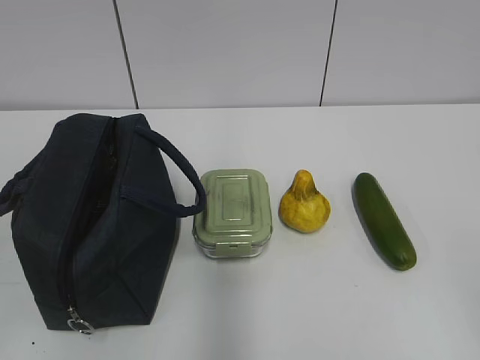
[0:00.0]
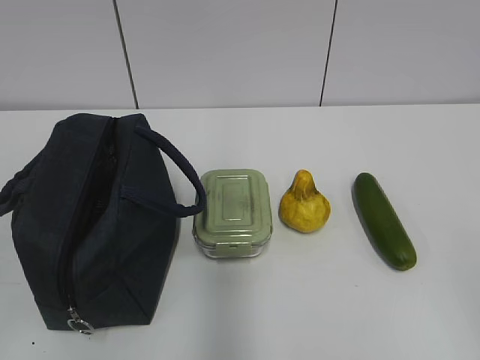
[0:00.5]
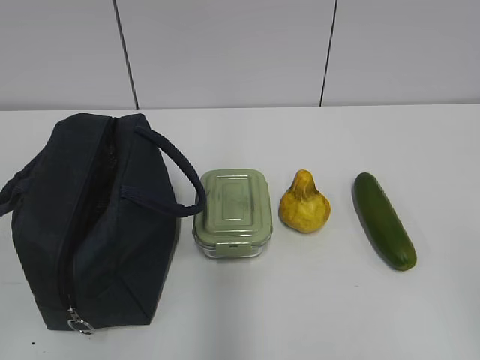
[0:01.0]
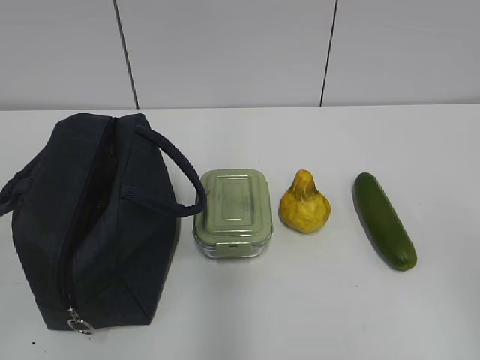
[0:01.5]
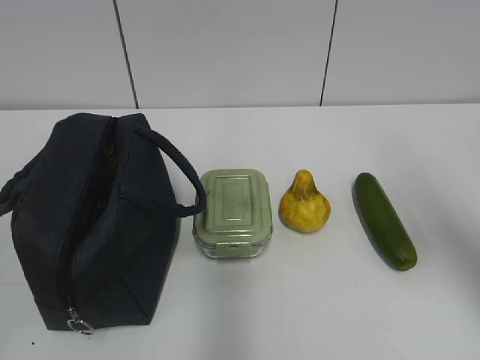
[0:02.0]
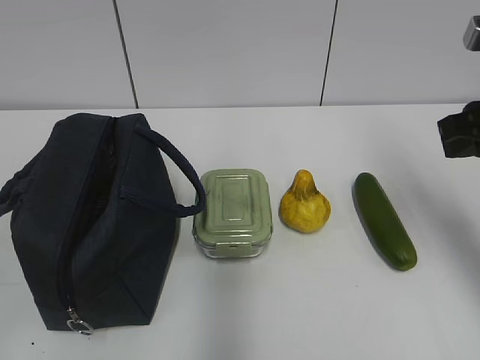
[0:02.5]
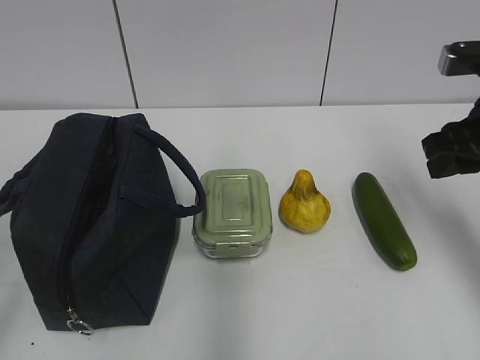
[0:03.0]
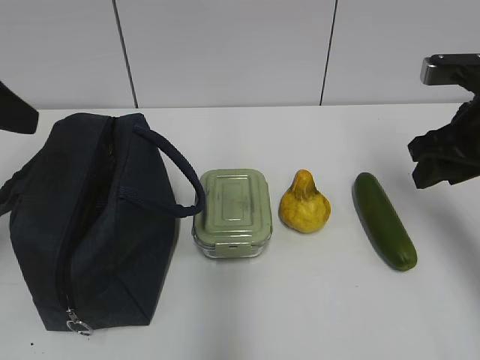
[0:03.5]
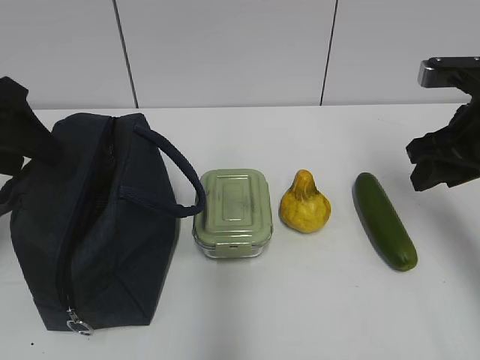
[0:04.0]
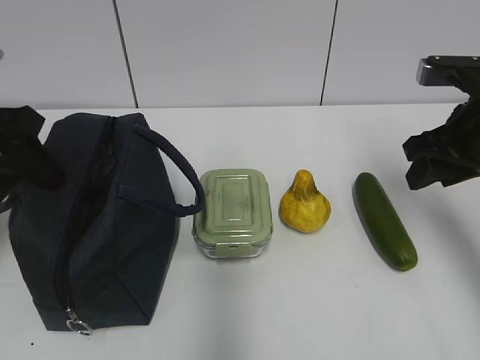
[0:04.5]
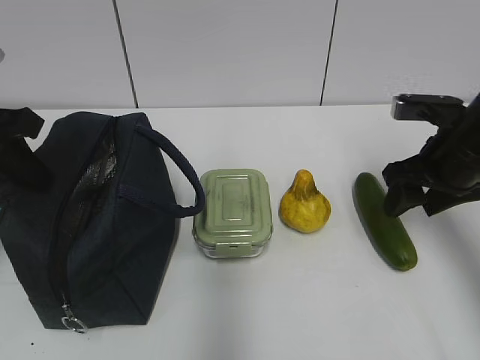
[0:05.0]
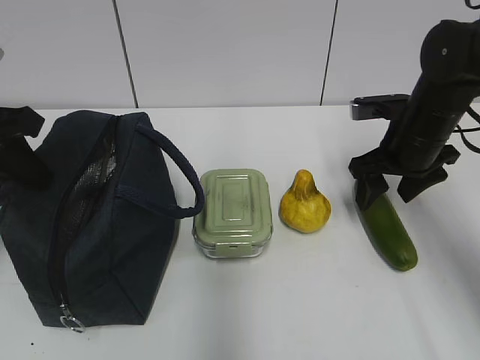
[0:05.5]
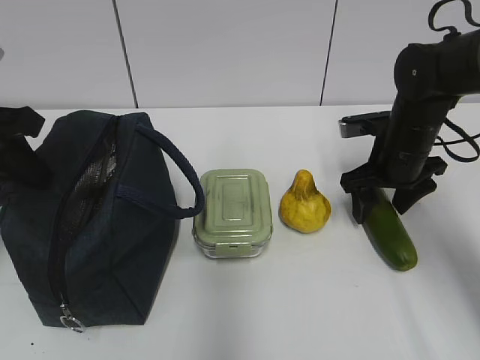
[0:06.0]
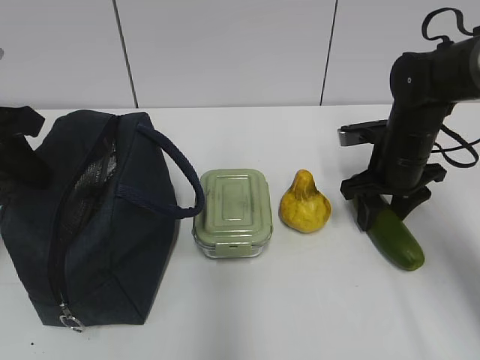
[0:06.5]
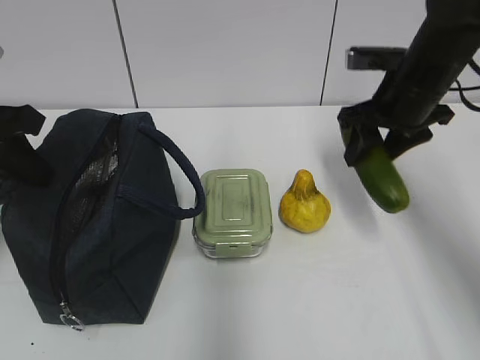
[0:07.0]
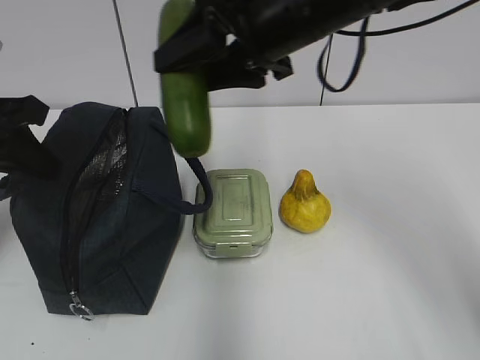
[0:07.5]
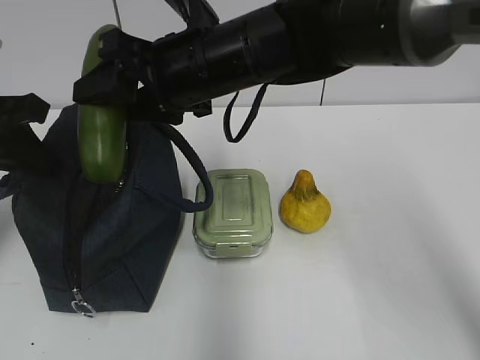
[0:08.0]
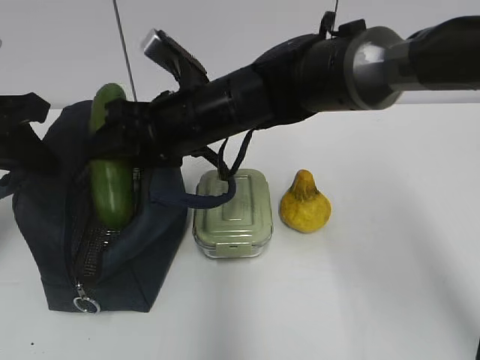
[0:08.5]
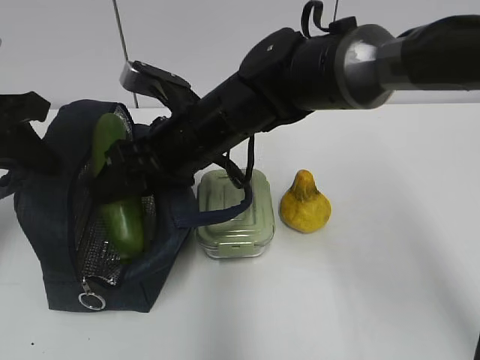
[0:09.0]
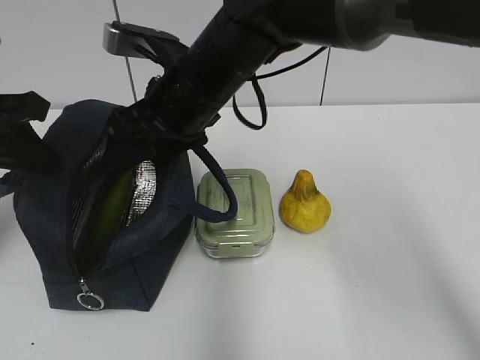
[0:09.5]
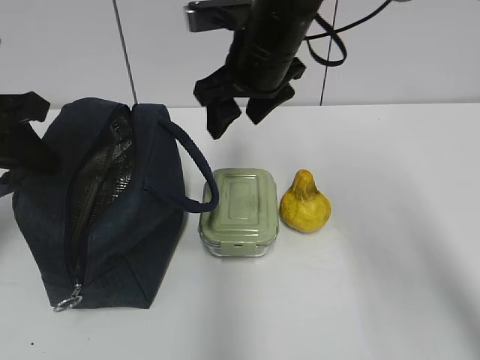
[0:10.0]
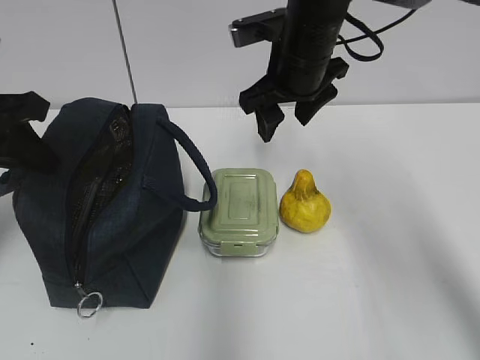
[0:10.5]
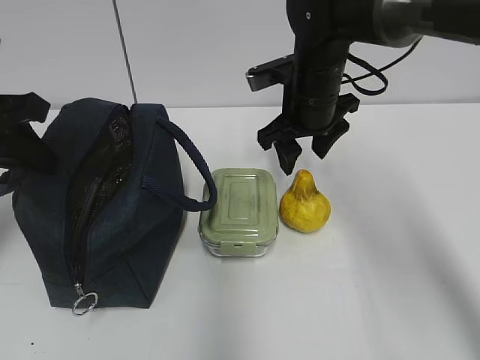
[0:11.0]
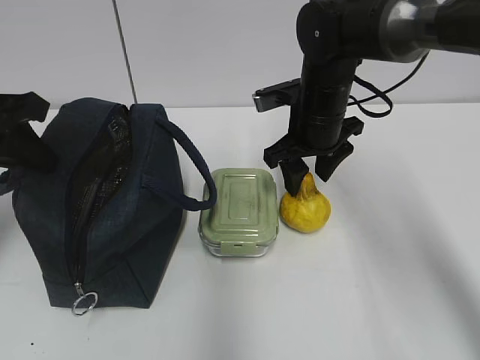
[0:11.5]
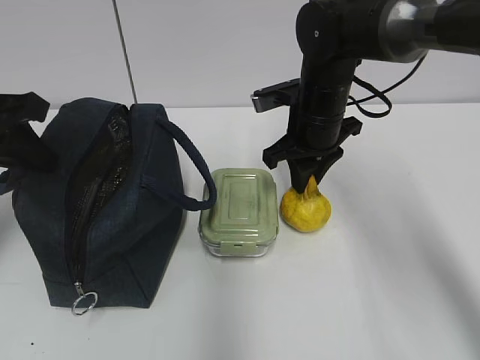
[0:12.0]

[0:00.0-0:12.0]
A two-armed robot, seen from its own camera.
Step, 0:00.0 to 0:04.5: Grab the lunch bag with your left hand.
Step, 0:05.0 to 0:06.0: Grab the cucumber with your right hand.
Step, 0:06.5 to 0:09.5: Place it into the bag with your right hand.
Step, 0:10.0 to 0:11.5: Grab the pear with your right hand.
0:02.0 to 0:04.0: The left gripper heads forward, covering about 25 cm, and opens up, while the right gripper is displaced forward and downward by roughly 15 cm.
0:04.0 to 0:06.0: The left gripper closes up, while the right gripper moves downward and forward, some 15 cm.
0:06.0 to 0:08.0: The right gripper is displaced to the left and upward by some 25 cm.
0:08.0 to 0:10.0: The right gripper moves to the right, some 5 cm.
0:10.0 to 0:12.0: The right gripper is displaced downward and to the right by about 10 cm, and closes its fingers.

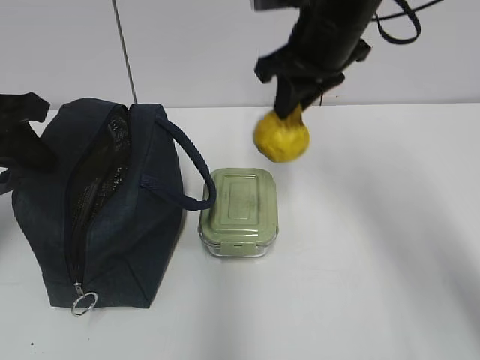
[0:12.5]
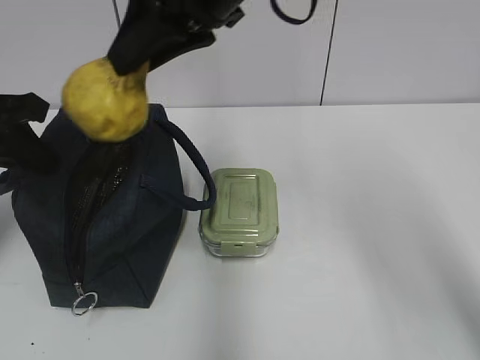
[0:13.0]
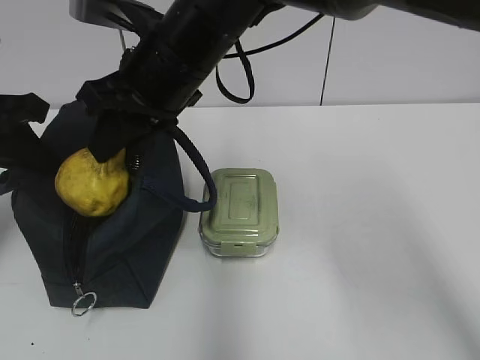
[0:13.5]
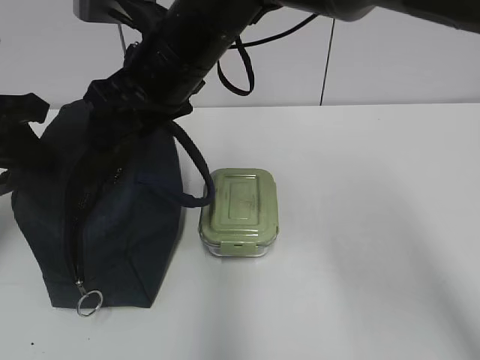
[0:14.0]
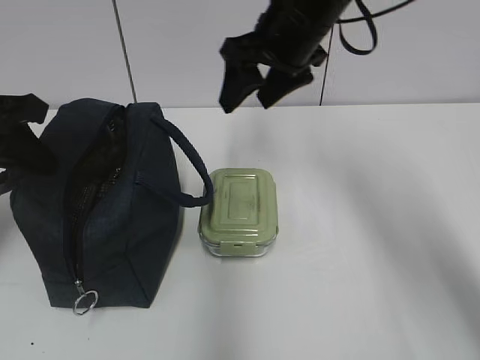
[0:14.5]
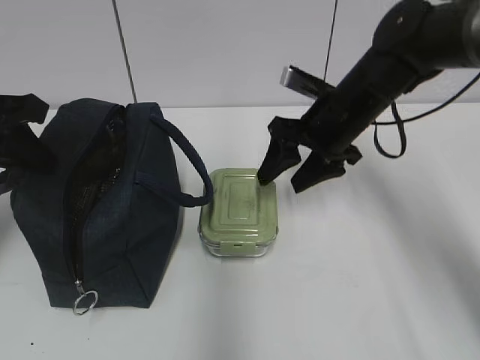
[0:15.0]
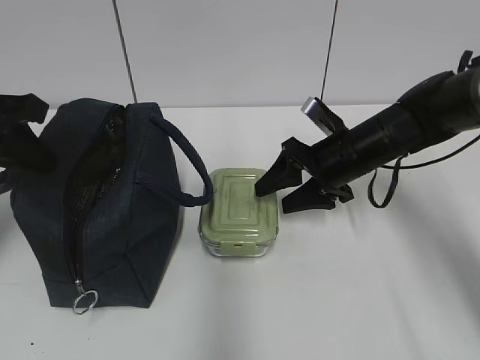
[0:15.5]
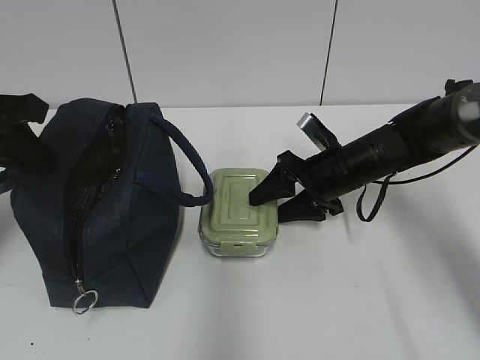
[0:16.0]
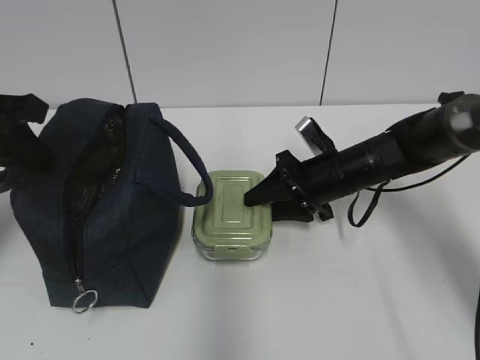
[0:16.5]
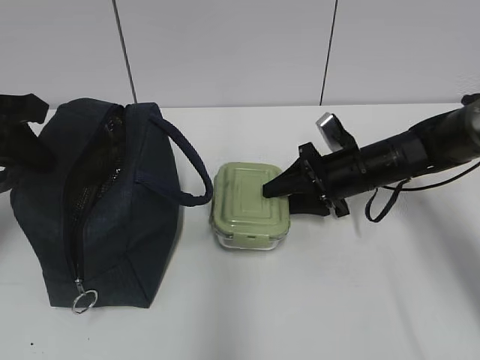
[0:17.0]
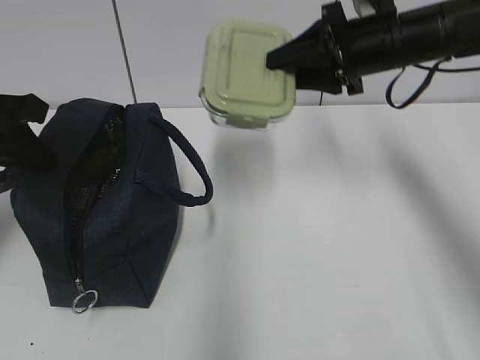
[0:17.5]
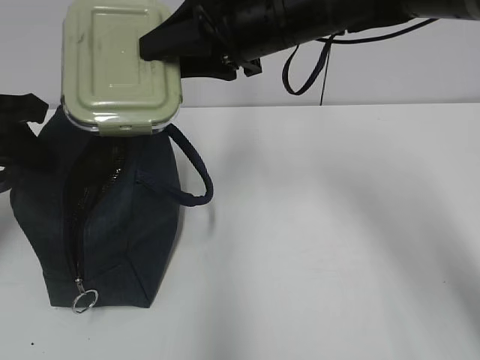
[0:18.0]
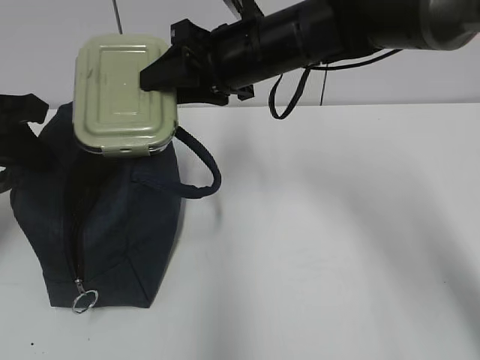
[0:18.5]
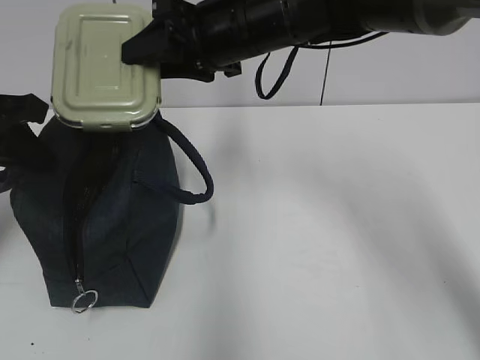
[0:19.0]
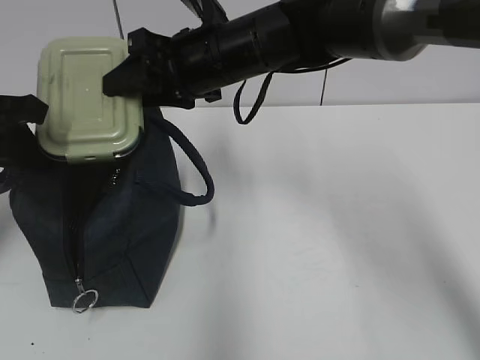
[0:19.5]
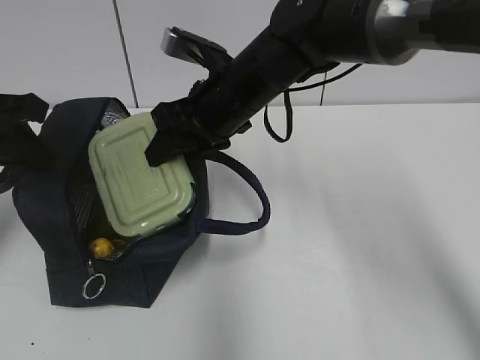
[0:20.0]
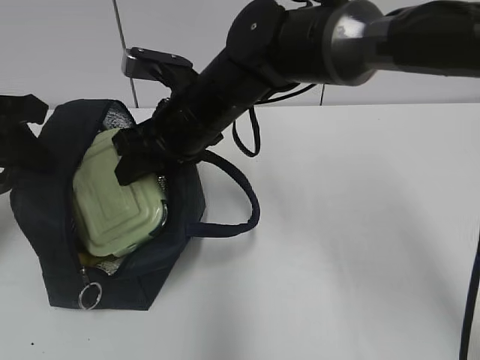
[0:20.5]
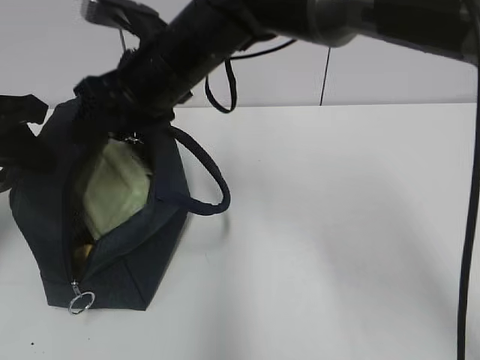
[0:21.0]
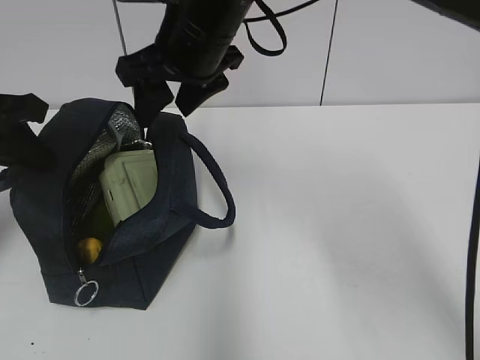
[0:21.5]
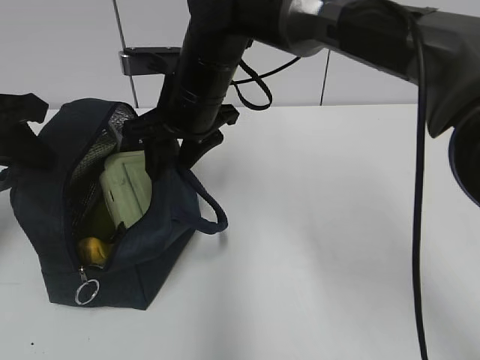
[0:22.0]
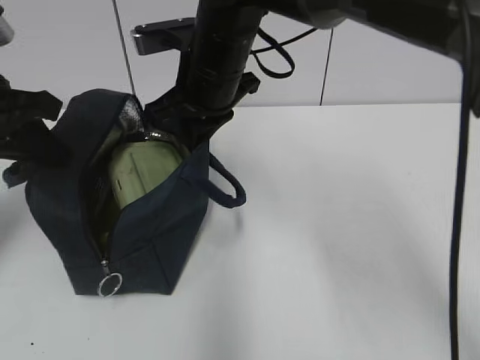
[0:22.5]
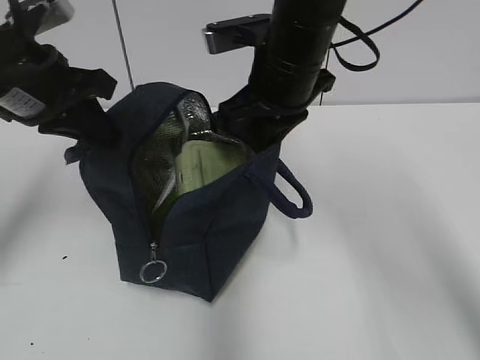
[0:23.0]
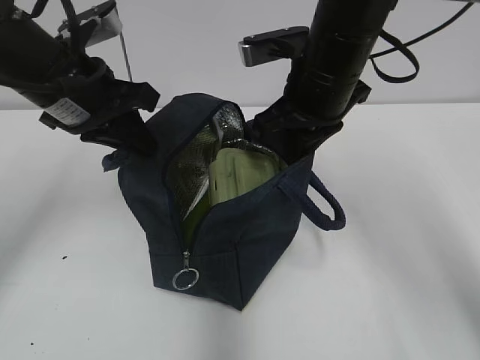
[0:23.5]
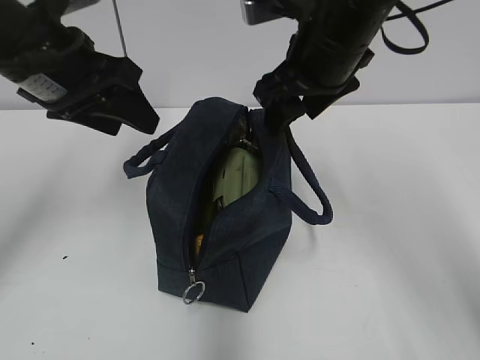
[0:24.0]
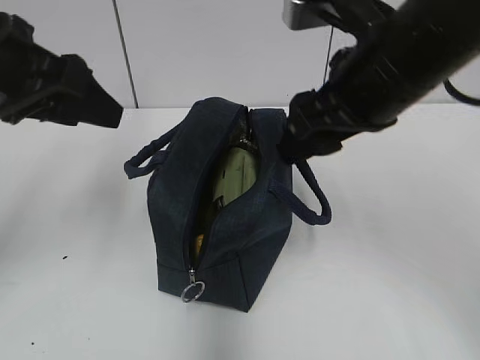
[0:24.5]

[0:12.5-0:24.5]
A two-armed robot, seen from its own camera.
Step, 0:12.5 to 0:13.5: Place it into the bag with your right hand.
Step, 0:14.0 to 0:16.0: Grab the lunch box with your right hand.
Step, 0:21.5 to 0:22.0: Grab the lunch bag with your right hand.
Step, 0:22.5 to 0:23.5: Move the lunch bag to the right.
0:12.5 to 0:14.5: The right gripper goes to the left and returns, some 15 cm each way, and opens.
0:14.5 to 0:16.5: The right gripper travels downward by roughly 20 cm.
0:16.5 to 0:18.5: The right gripper goes about 20 cm upward and to the left.
0:18.5 to 0:20.5: The right gripper moves to the left and downward, approximately 10 cm.
0:20.5 to 0:22.5: The right gripper travels upward by roughly 5 cm, and closes its fingers.
0:22.5 to 0:24.5: The right gripper goes some 15 cm to the right and backward, and opens. The left gripper changes place by about 5 cm, and opens up.

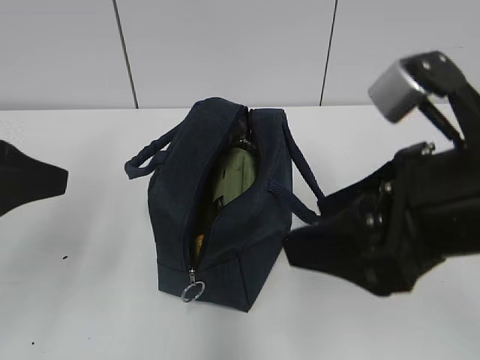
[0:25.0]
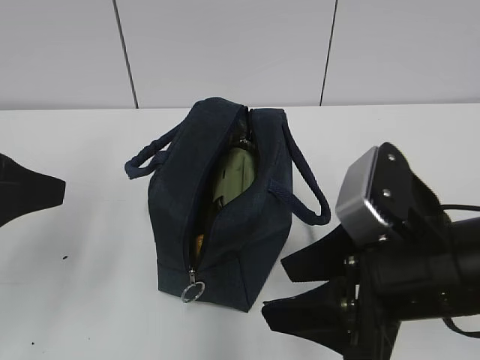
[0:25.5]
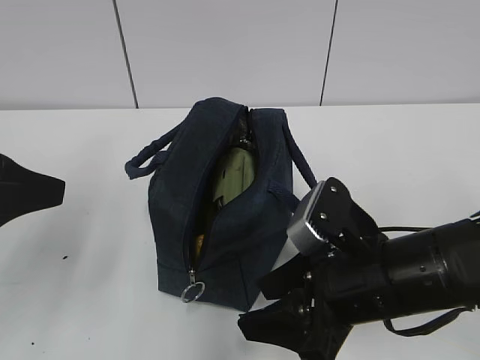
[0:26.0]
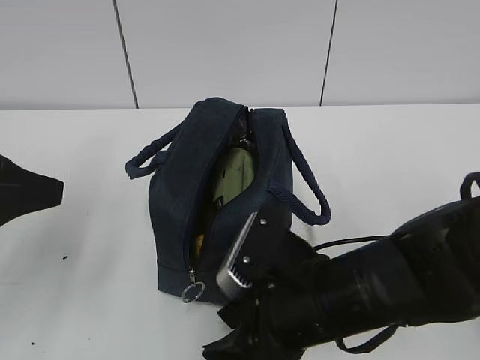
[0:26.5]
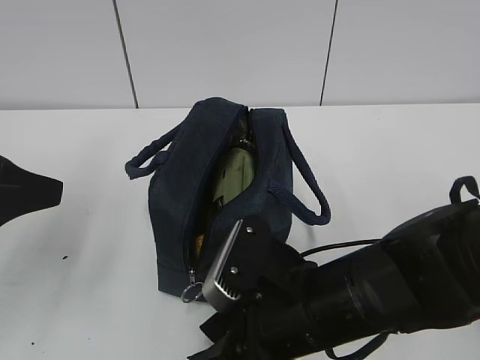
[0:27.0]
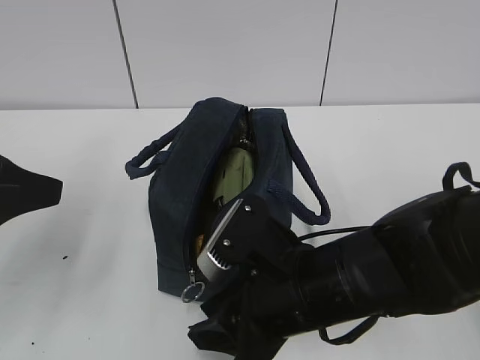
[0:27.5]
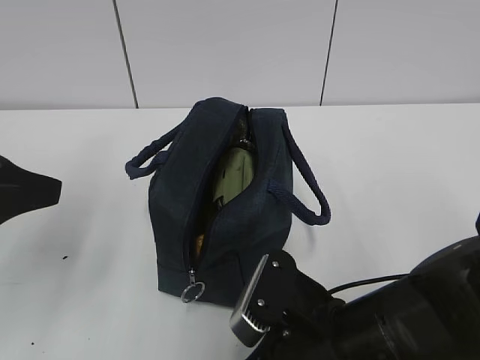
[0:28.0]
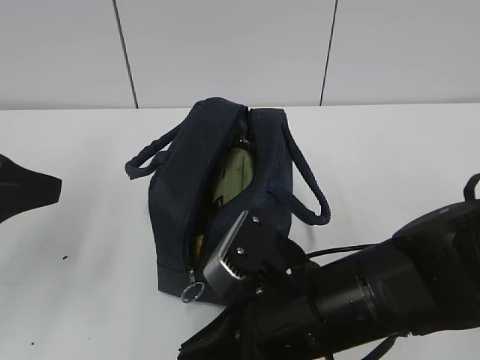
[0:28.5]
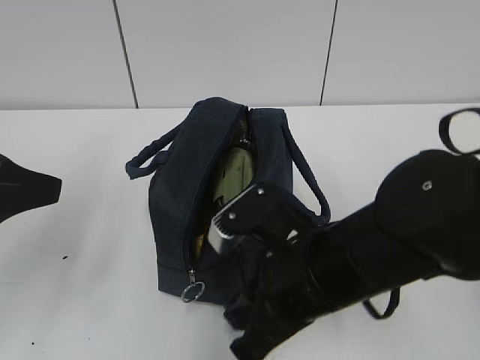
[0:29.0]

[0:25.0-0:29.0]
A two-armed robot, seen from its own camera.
0:25.0 to 0:27.0: The right gripper heads downward and to the left, covering roughly 15 cm.
0:27.0 to 0:29.0: The right gripper closes up.
